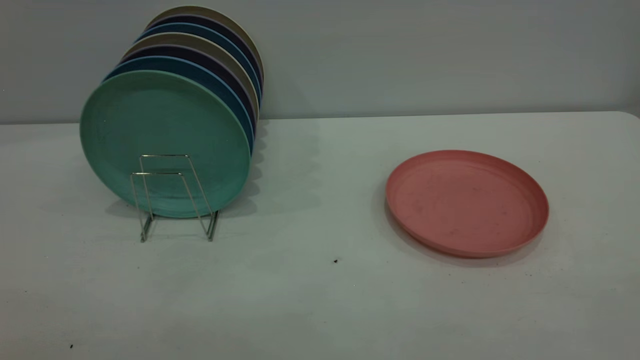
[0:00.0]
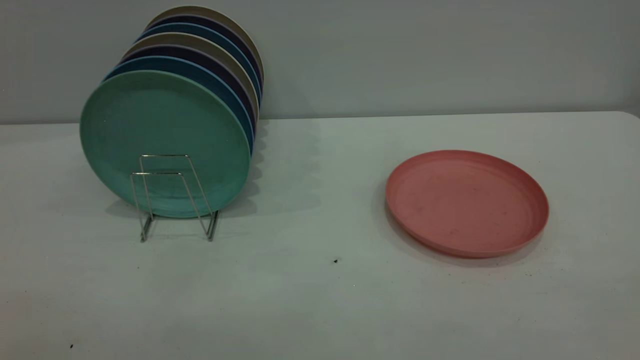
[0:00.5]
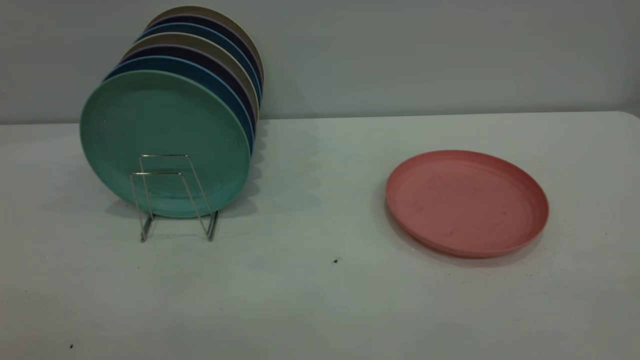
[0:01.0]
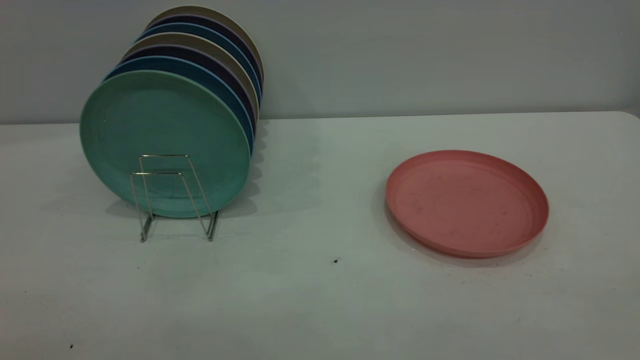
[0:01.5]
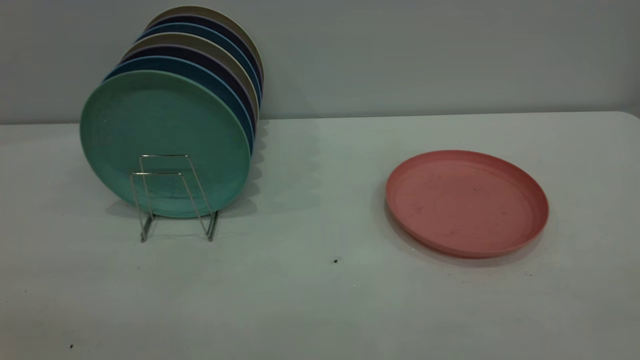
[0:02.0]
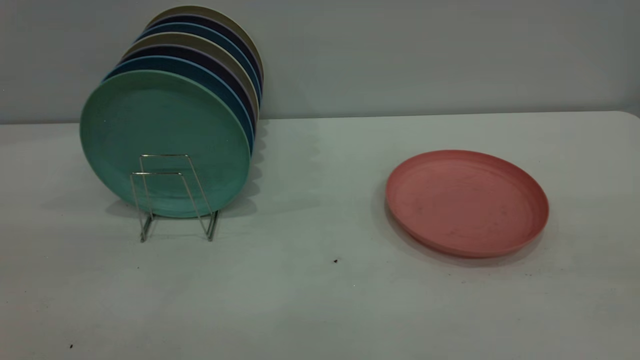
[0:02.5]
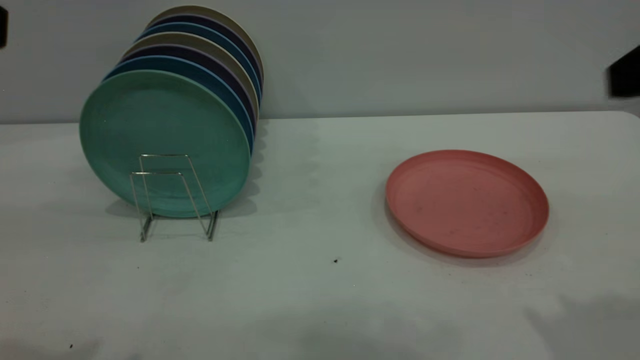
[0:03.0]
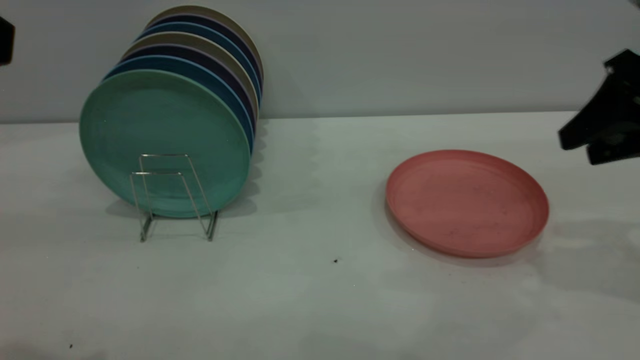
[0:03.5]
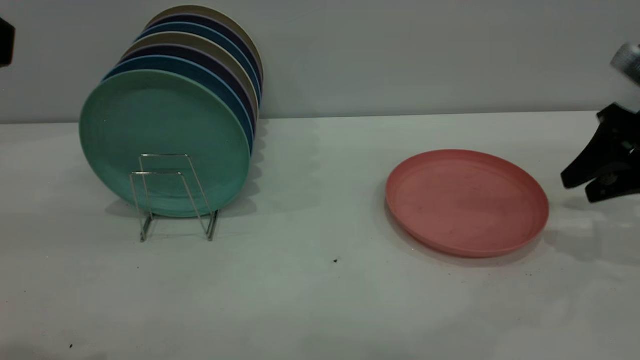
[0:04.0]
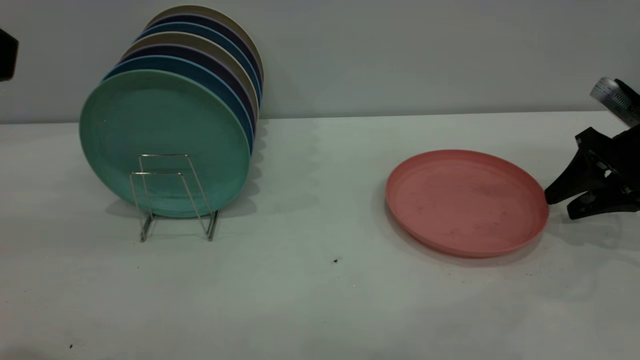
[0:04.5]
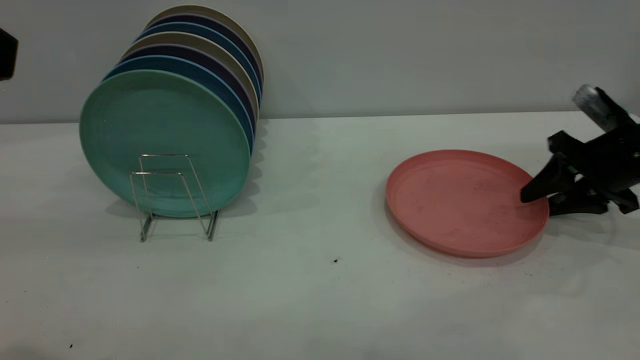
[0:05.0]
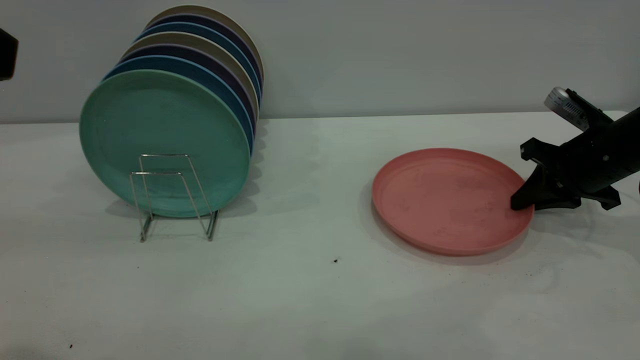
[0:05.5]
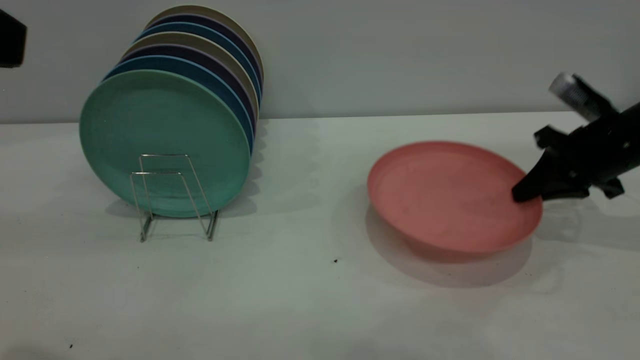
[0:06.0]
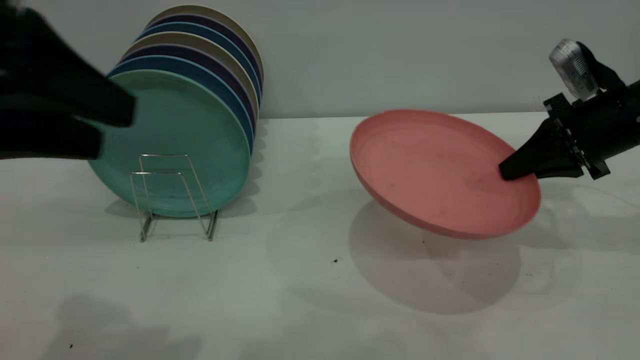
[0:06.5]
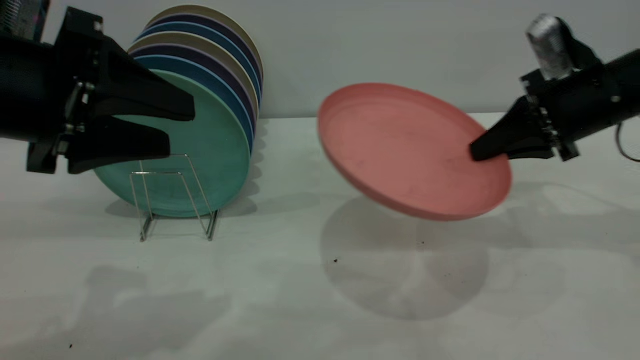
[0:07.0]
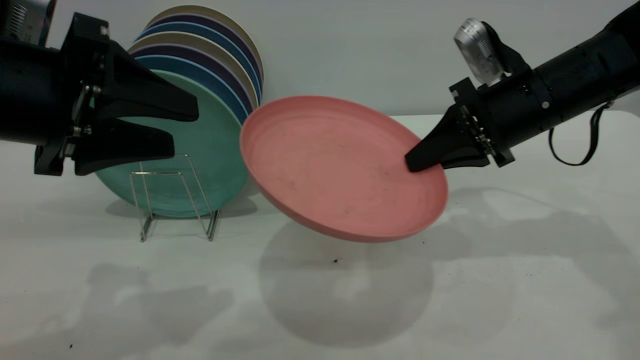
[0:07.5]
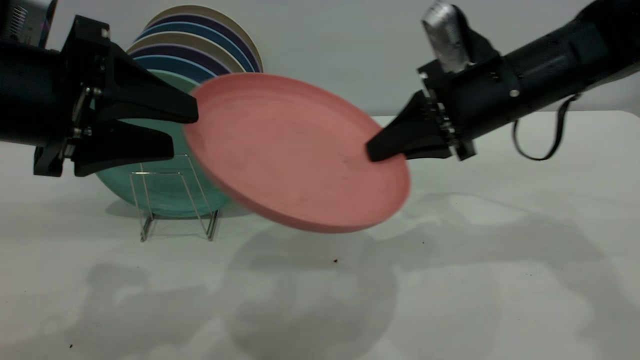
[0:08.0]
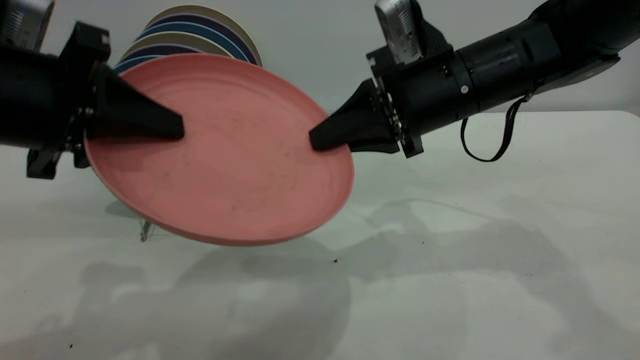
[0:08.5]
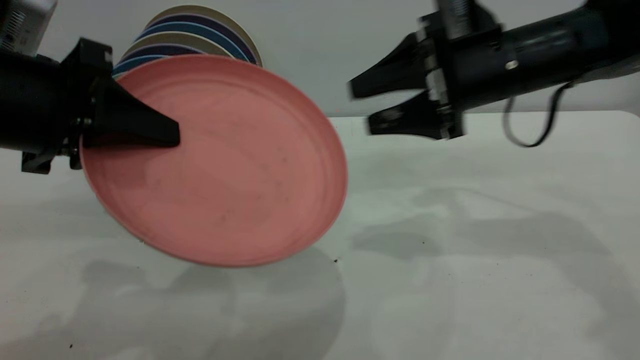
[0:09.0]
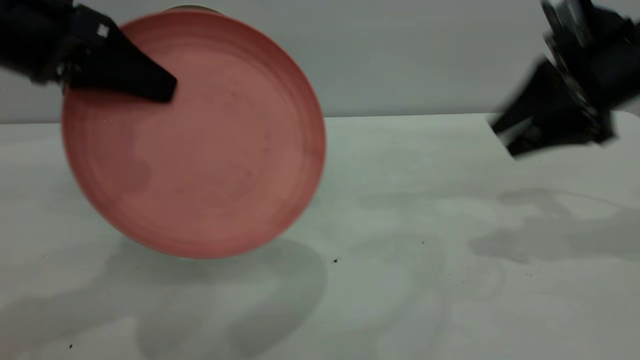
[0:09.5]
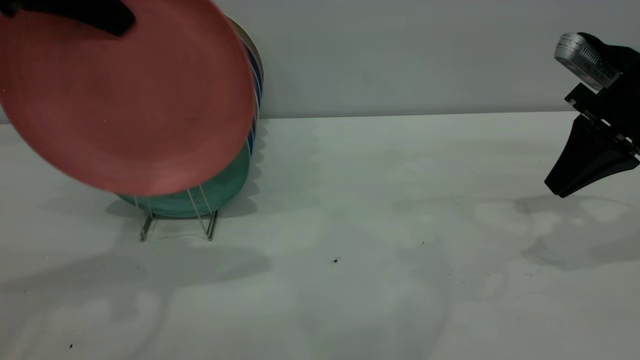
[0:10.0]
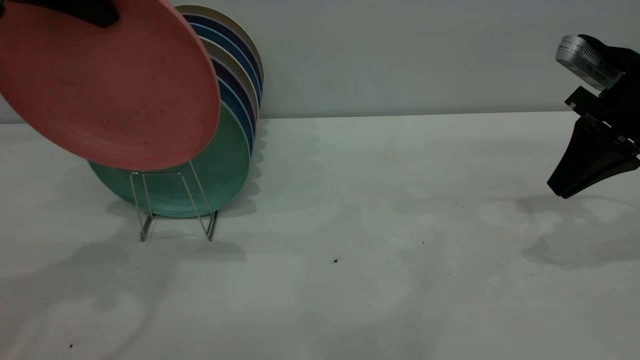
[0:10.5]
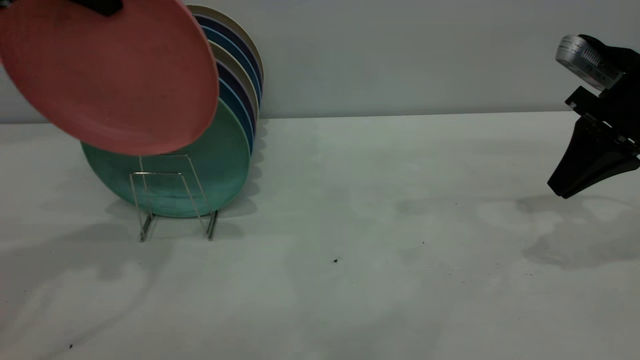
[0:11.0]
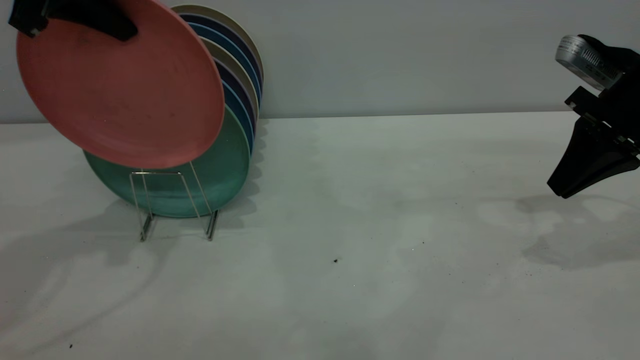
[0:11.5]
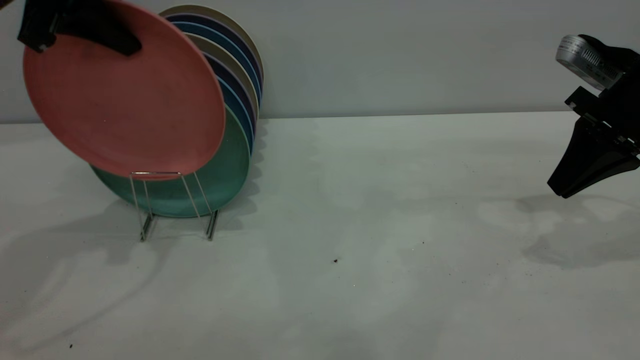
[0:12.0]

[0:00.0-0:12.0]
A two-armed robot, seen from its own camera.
Task of the whole recording: the right gripper grasp the pink plate, the right gripper pass the pink plate to the left gripper, and the left gripper place the pink plate on the plate rack.
Step, 0:00.0 to 0:06.0: Pick up the plate with the right gripper.
Step, 0:06.5 to 0:10.0: Pass the plate from the right gripper to the left gripper.
0:02.0 to 0:04.0: The right gripper shifts about 40 cm forward and downward, and opens.
0:04.0 to 0:06.0: The right gripper changes place by about 5 cm, and closes up.
0:06.0 to 0:08.0: The right gripper heads to the left, covering approximately 15 cm. Meanwhile the left gripper moves downward and forward, roughly 15 cm.
0:08.0 to 0:10.0: The left gripper goes roughly 15 cm upward and forward, and closes, while the right gripper goes approximately 15 cm to the right, and opens, then closes again.
0:10.0 to 0:12.0: The left gripper shifts roughly 5 cm forward.

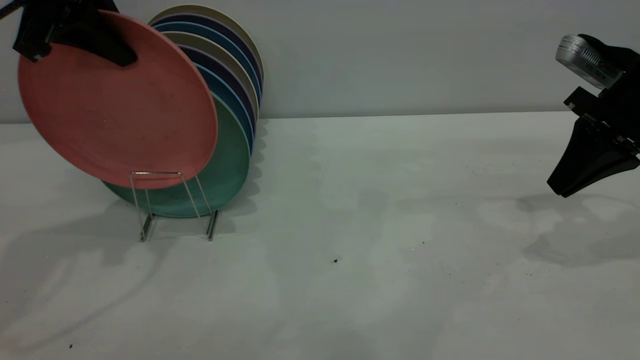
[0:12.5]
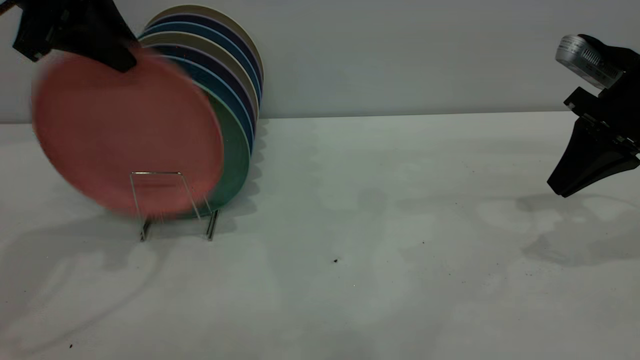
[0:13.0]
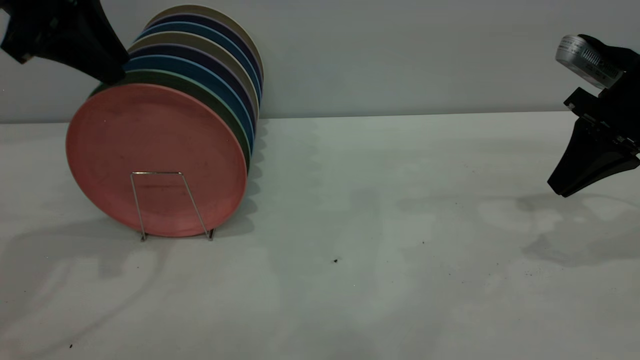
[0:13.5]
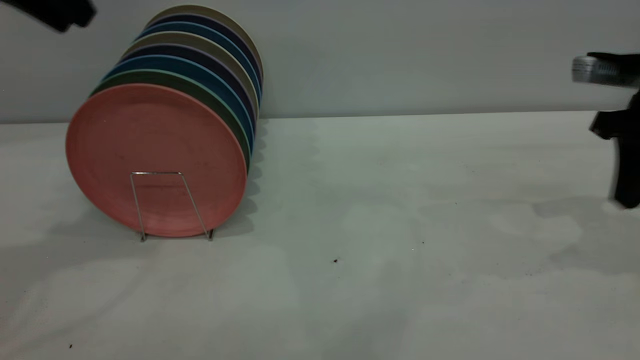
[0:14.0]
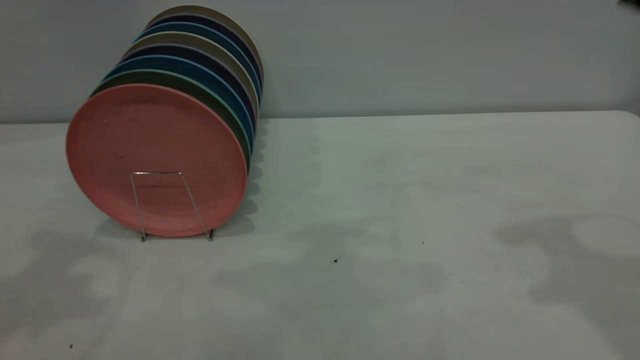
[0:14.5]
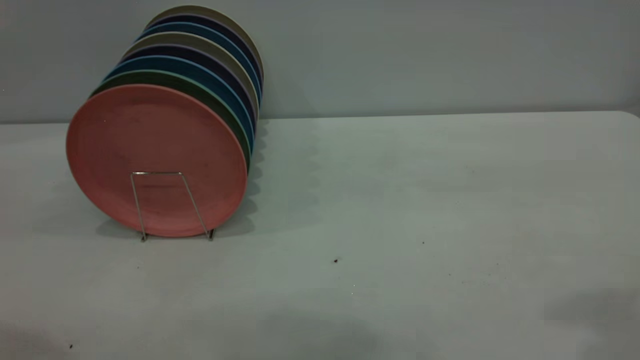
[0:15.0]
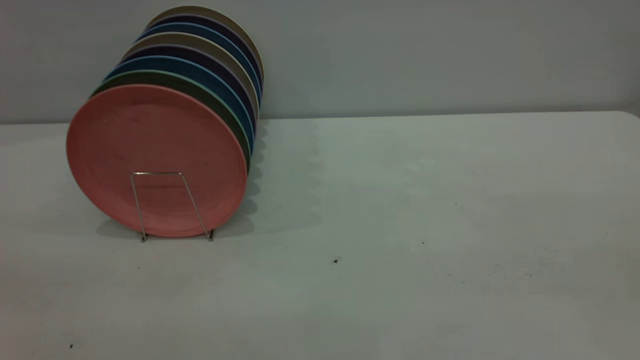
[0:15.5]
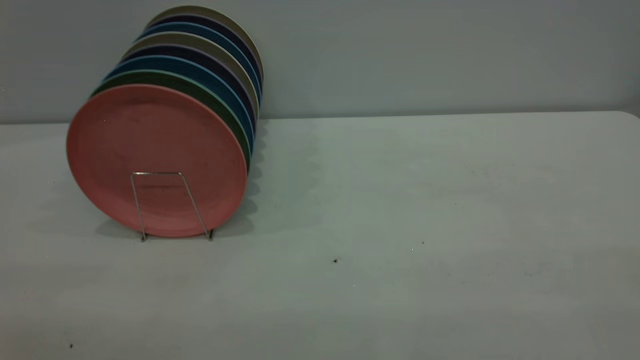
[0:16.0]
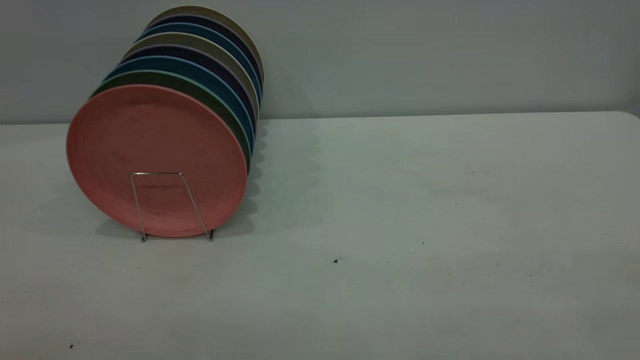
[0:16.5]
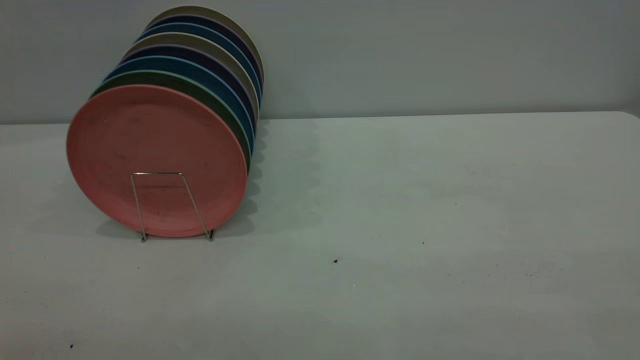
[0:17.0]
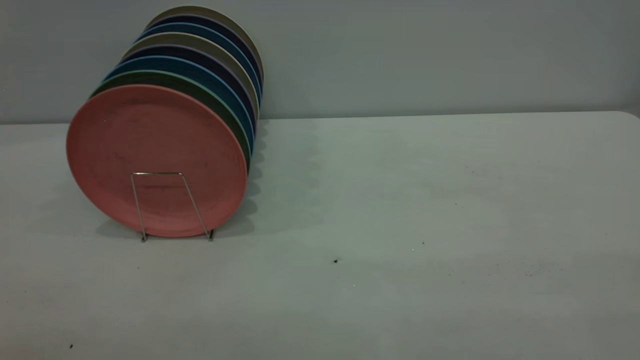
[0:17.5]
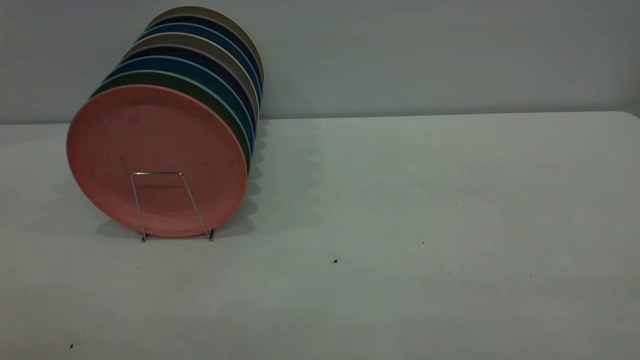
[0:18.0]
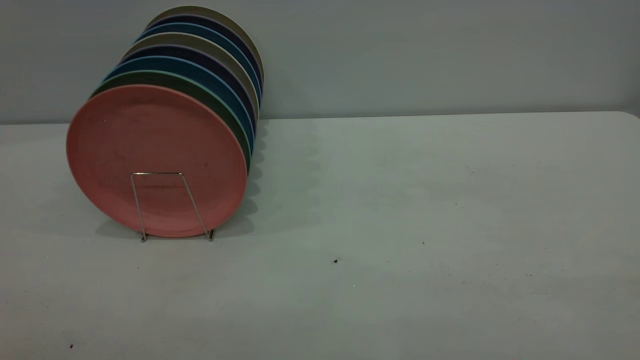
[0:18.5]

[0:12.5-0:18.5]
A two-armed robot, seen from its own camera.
Task of the whole recording: the right gripper grasp the pink plate, the right gripper pass the pink plate to the left gripper, and the left gripper place the pink plate on the plate rack.
0:12.5 to 0:14.5: The left gripper goes roughly 15 cm backward and upward, and opens its fingers; the right gripper shifts some 20 cm upward and backward.

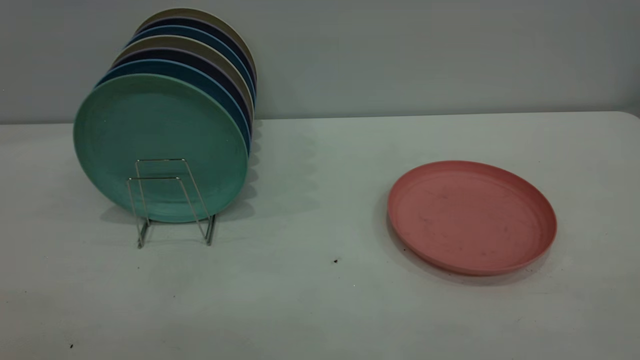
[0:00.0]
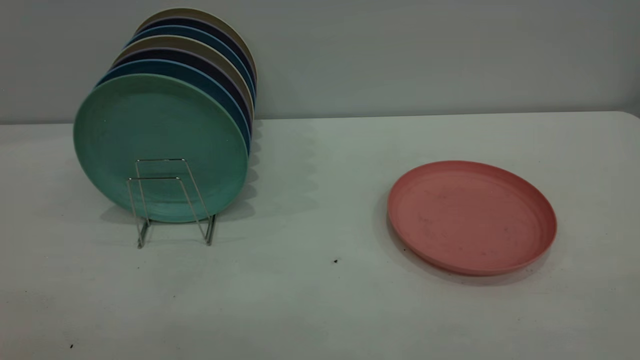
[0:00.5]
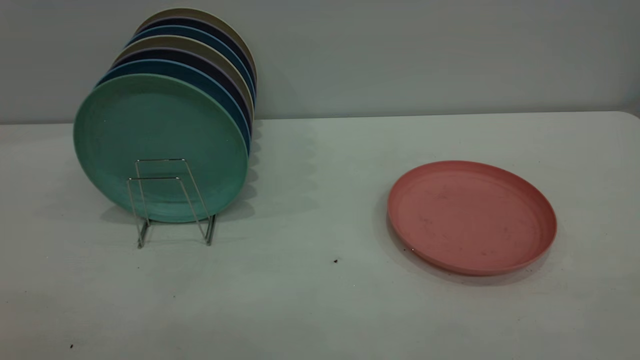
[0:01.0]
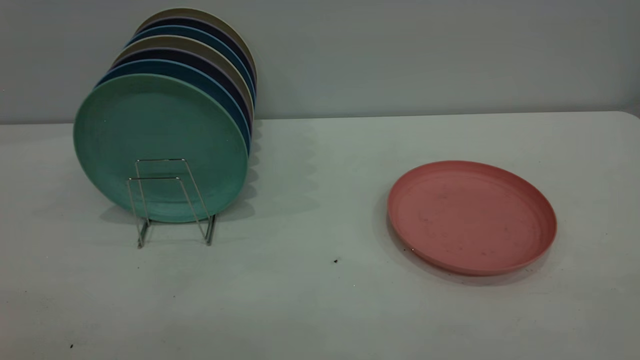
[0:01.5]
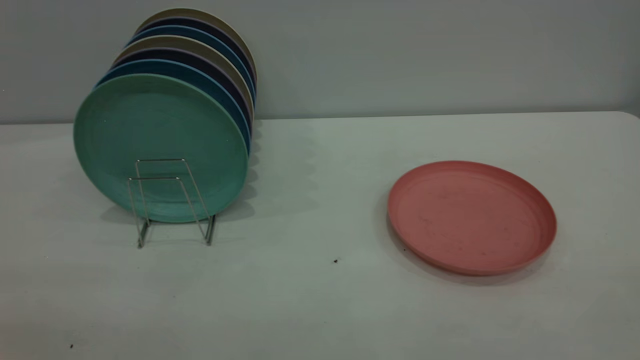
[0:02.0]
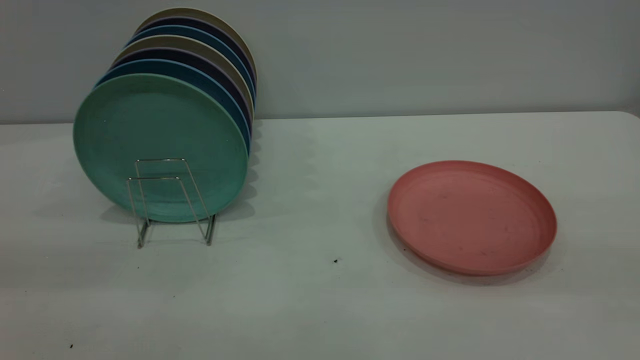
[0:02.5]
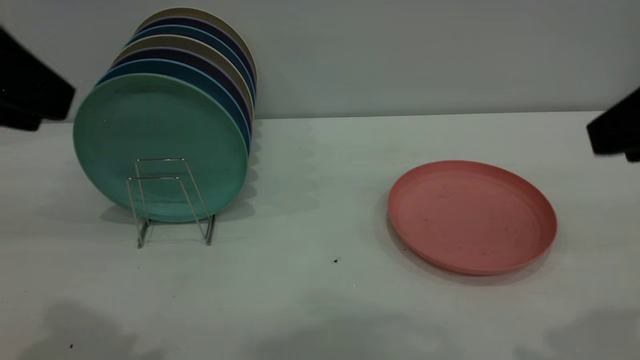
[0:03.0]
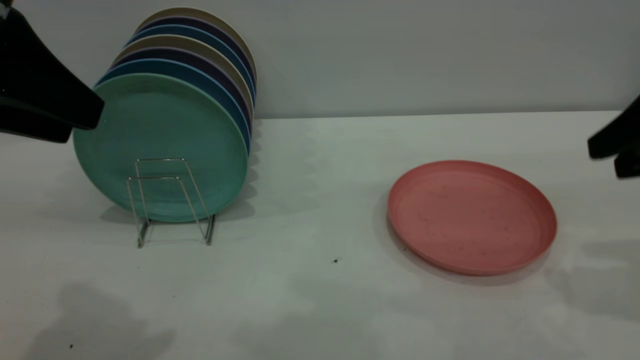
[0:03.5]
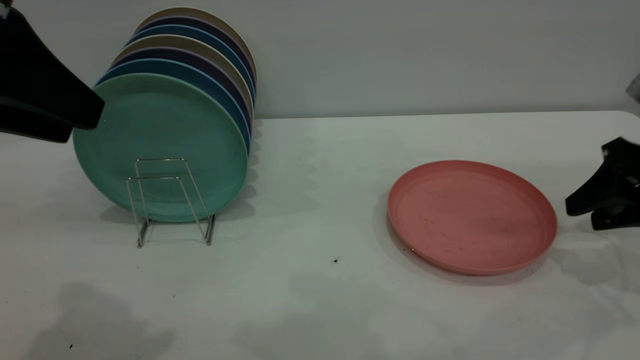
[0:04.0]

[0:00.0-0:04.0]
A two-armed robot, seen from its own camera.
Task of the whole recording: the right gripper grasp the pink plate, the right gripper pass the pink plate to the left gripper, and the left gripper place the pink plate on the plate rack.
0:02.0 to 0:04.0: The right gripper heads forward and downward, covering some 40 cm. Meanwhile the left gripper moves forward, about 20 cm.
